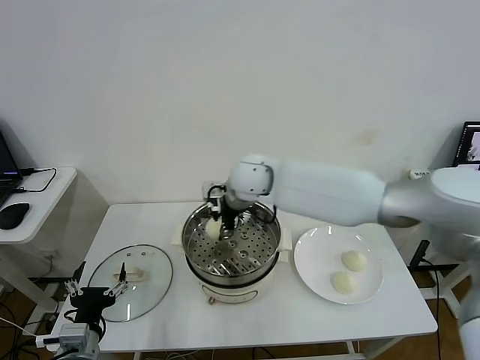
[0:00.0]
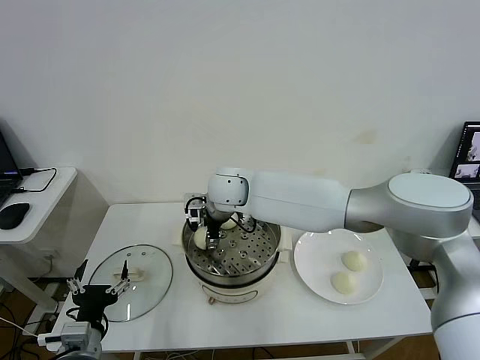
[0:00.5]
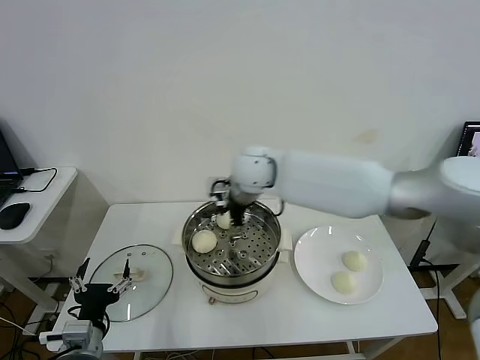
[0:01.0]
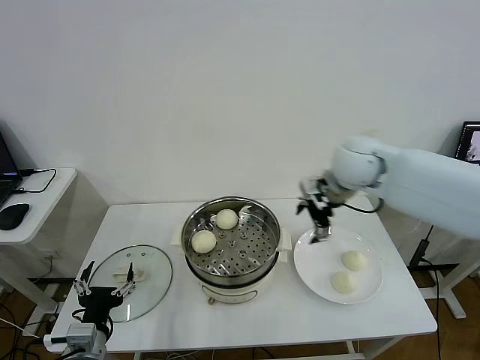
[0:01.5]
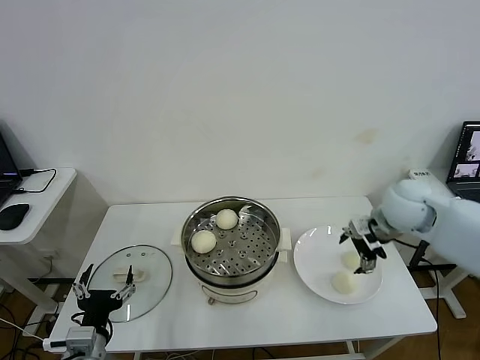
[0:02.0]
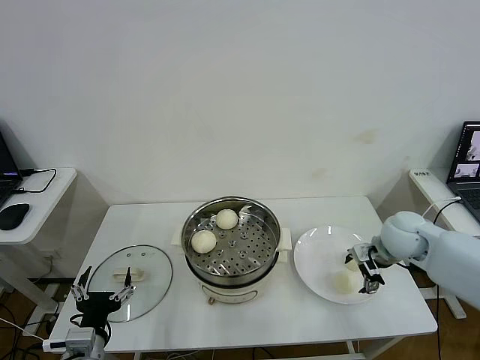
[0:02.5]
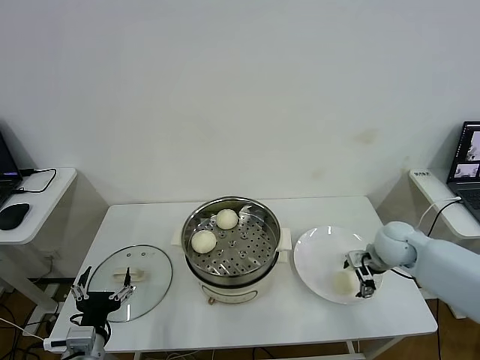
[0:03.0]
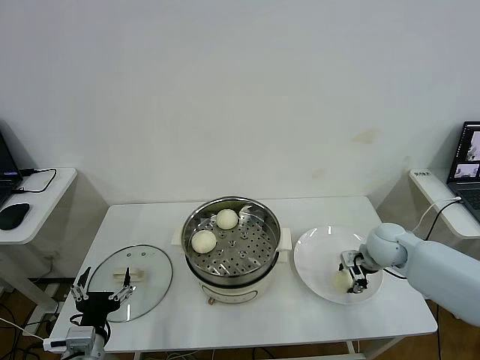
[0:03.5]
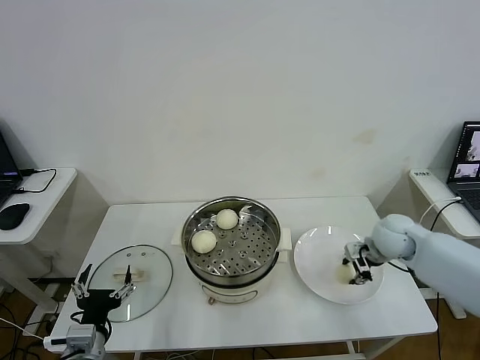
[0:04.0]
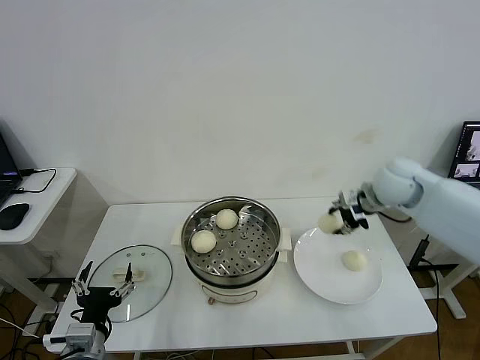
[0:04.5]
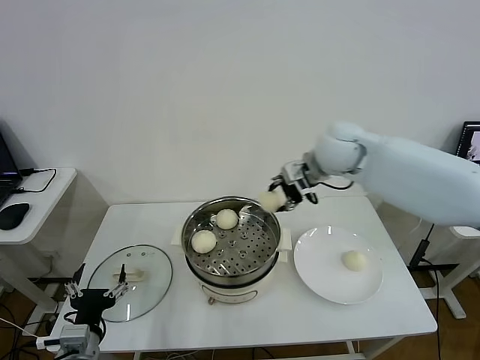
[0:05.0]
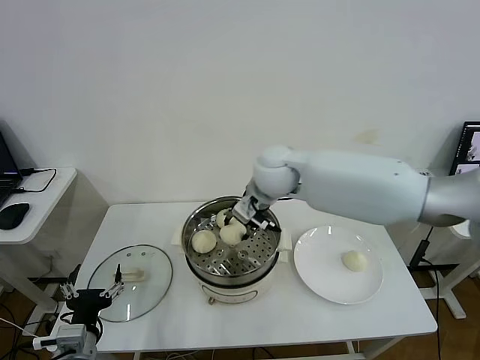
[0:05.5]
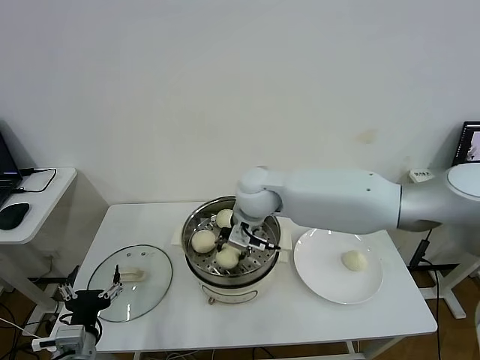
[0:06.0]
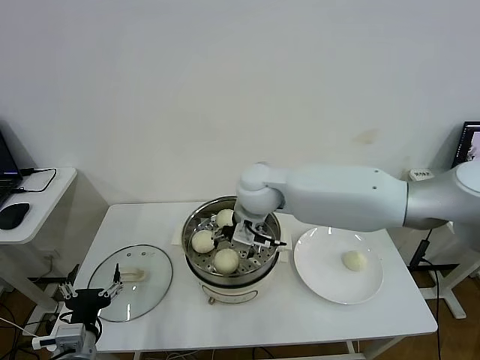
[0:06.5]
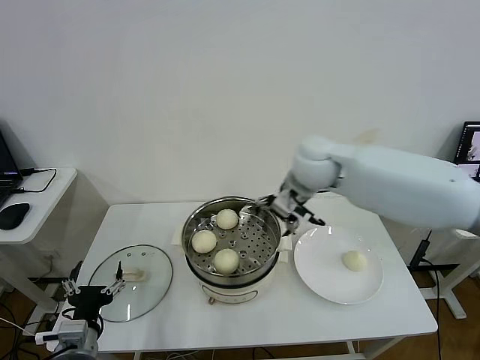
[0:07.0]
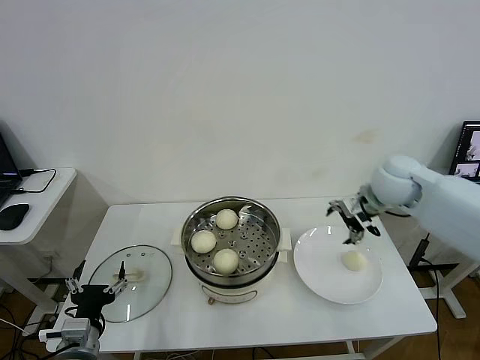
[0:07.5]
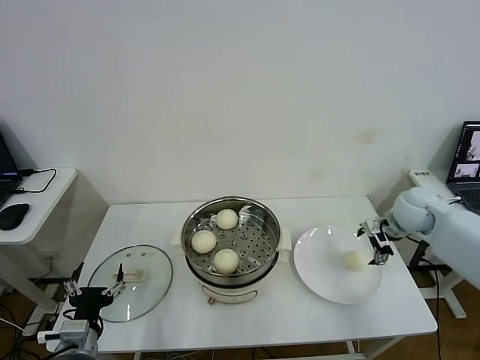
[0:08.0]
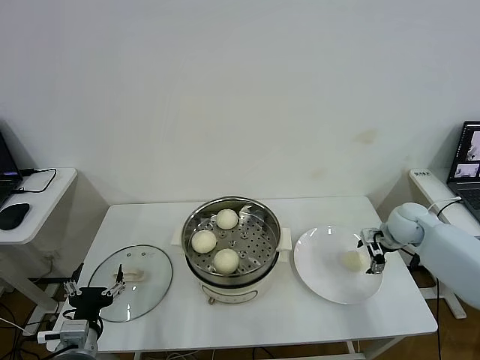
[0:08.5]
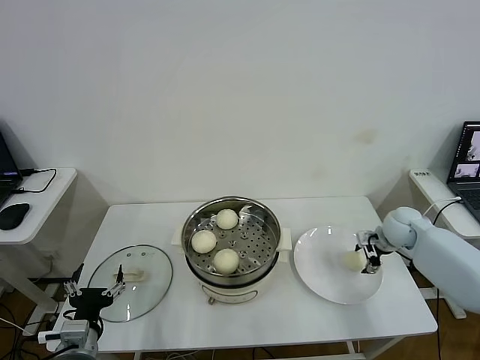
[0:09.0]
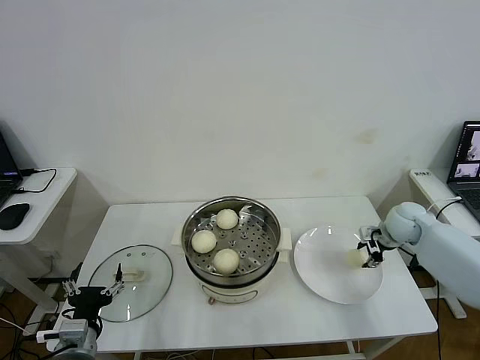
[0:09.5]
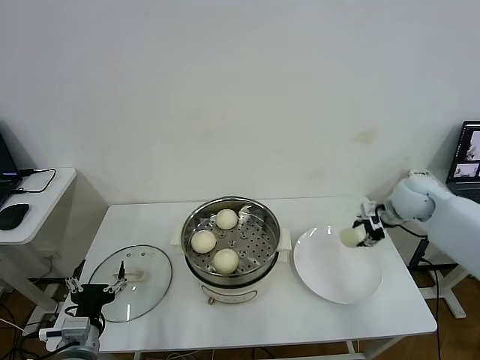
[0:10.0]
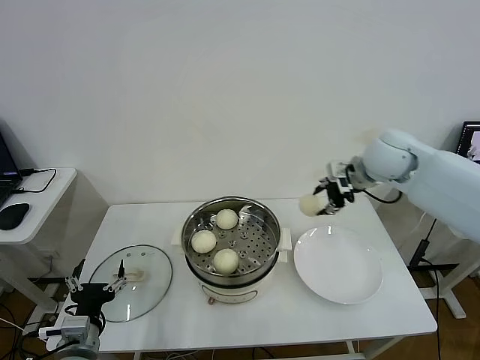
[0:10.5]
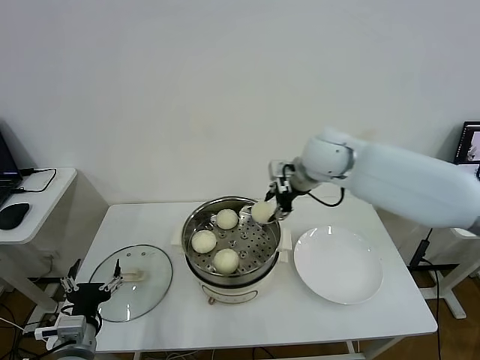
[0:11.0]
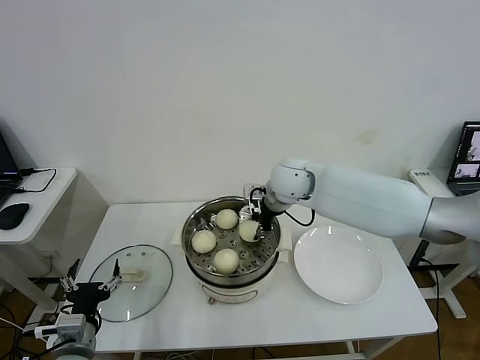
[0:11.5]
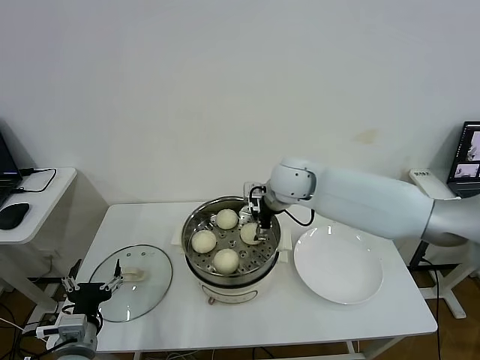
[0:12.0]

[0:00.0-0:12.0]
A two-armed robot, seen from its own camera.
Step, 1.0 to 3.5 s: Grasp the baozi in the plate with right gripper.
Step, 4.0 to 6.0 s: Place the baozi on the steamer with right gripper.
Step, 6.5 to 9.5 s: Grasp the baozi in the plate with right gripper.
Step, 10.0 to 11.5 s: Place the baozi on the steamer with right gripper.
0.0 to 2.0 s: The right gripper travels to the right by approximately 35 cm, and opens its fingers.
2.0 to 4.0 s: The right gripper heads downward, covering about 5 cm, and closes.
4.0 to 6.0 s: The right gripper heads to the left, covering some 30 cm.
6.0 to 8.0 s: The right gripper heads to the right, covering approximately 35 cm, and opens.
8.0 to 10.0 s: The right gripper ends up some 5 cm from where it was, and closes up.
10.0 to 12.0 s: The right gripper heads to the left, covering roughly 25 cm, and opens.

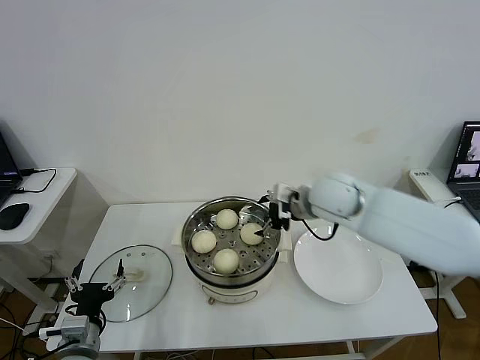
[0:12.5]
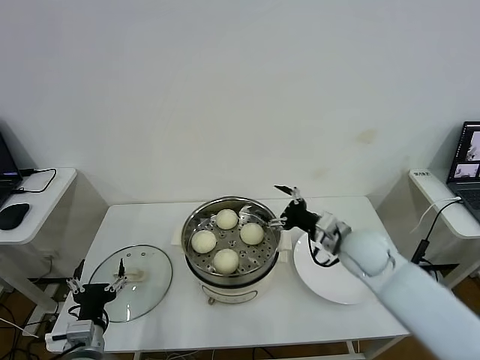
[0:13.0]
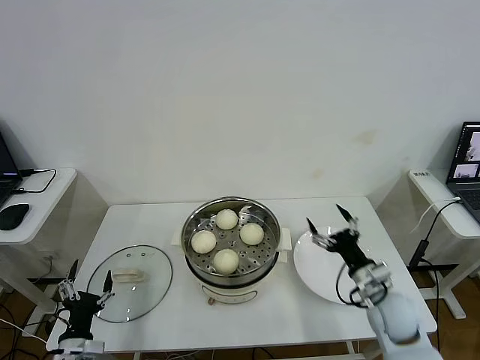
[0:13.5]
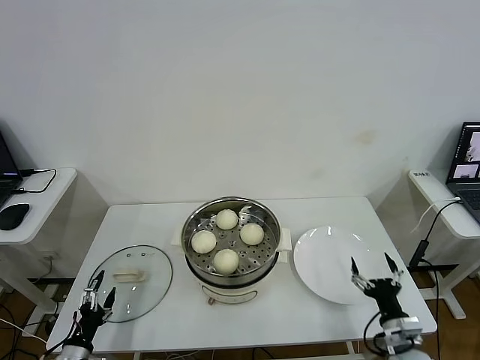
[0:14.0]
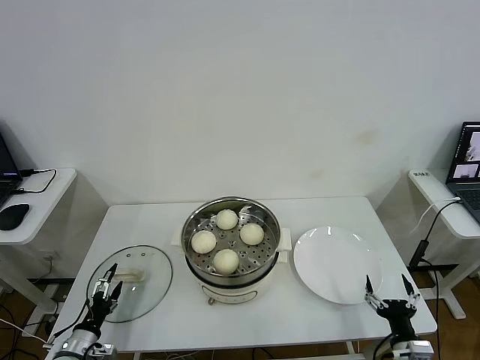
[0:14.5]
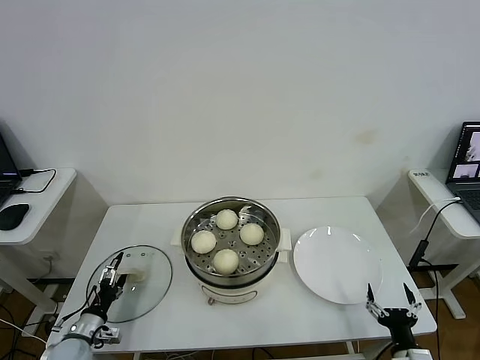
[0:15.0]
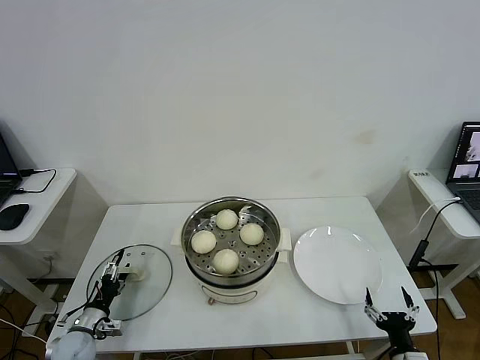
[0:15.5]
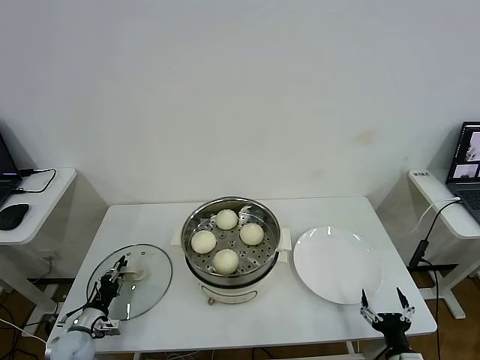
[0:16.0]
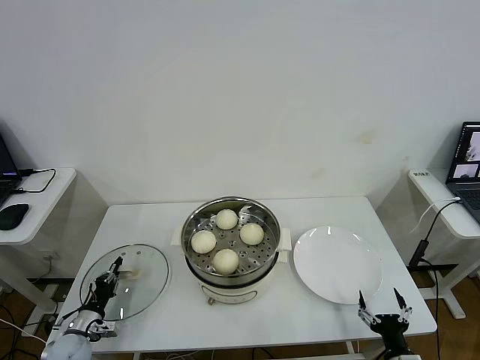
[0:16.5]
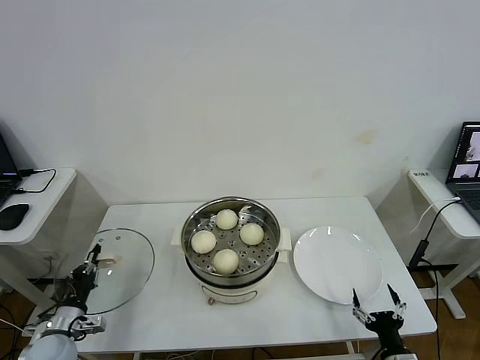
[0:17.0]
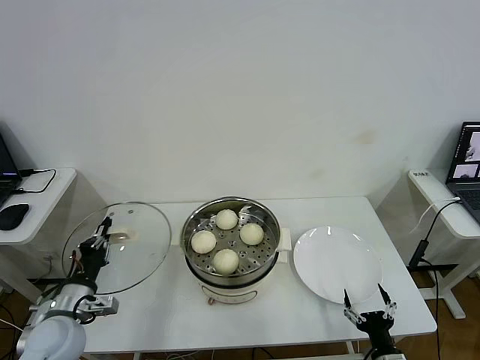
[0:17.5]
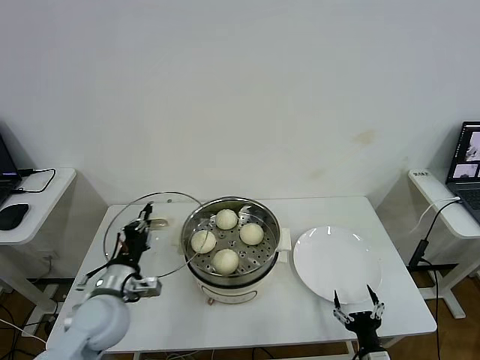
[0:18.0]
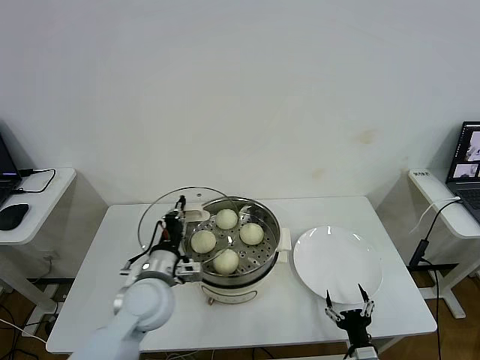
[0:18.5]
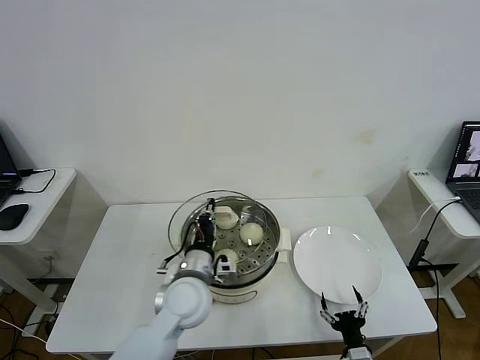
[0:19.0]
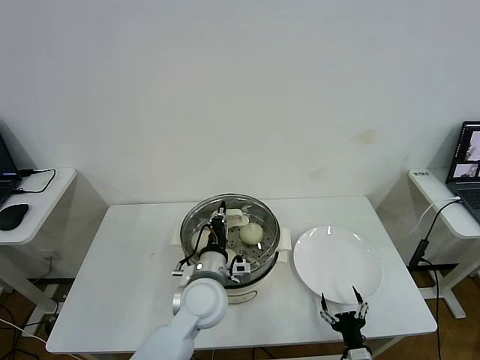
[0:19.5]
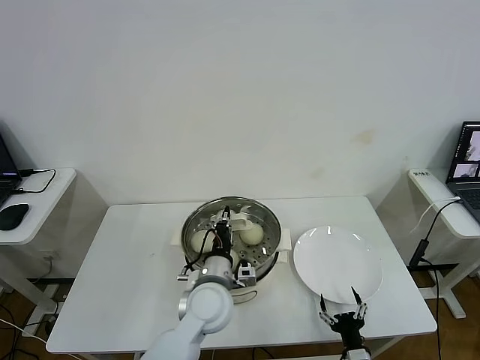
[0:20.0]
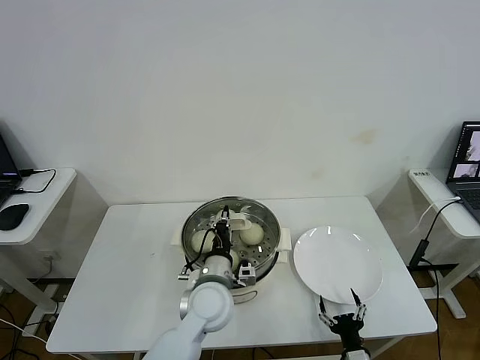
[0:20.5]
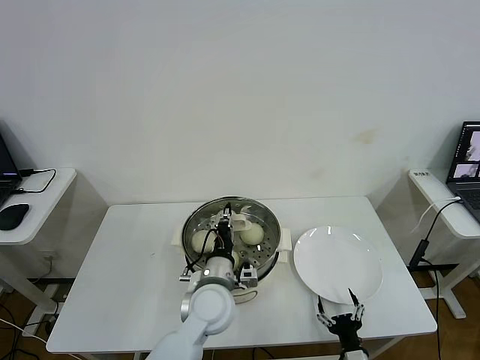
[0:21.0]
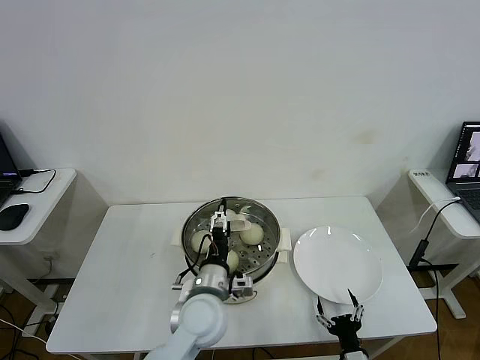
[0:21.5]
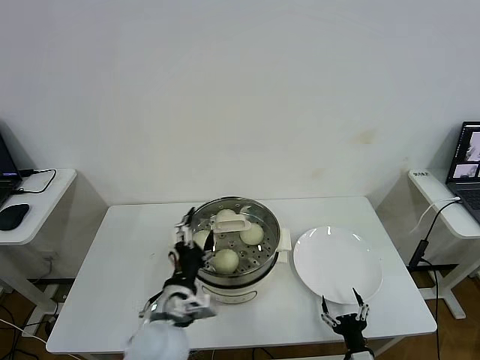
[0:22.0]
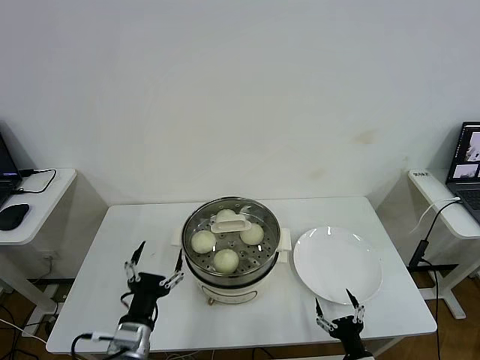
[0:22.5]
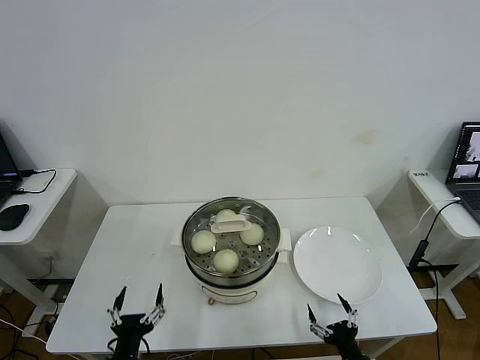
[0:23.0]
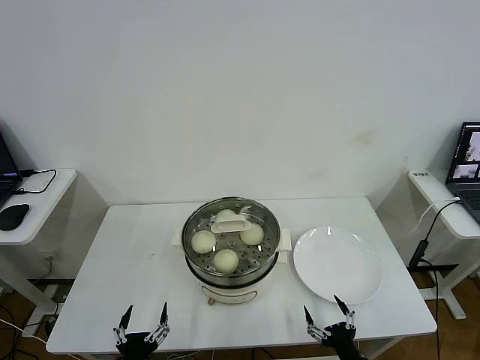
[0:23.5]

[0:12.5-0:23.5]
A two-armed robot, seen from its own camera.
Step, 12.5 to 16.0 s: Grasp the pot lid with left gripper.
Step, 16.5 to 21.0 s: Place the pot lid on the steamer with left gripper.
12.5 to 14.5 s: The left gripper heads downward and to the left, covering approximately 15 cm. Meanwhile the right gripper is displaced backward, downward and to the right by approximately 40 cm.
14.5 to 16.0 s: The left gripper heads forward, covering about 5 cm, and closes up.
16.0 to 18.0 s: The right gripper changes place by roughly 5 cm. Meanwhile the left gripper goes about 25 cm upward and to the right.
18.0 to 20.0 s: The left gripper travels to the right by about 20 cm.
20.0 to 21.5 s: The left gripper opens.
21.5 to 23.5 s: The right gripper is displaced upward by approximately 5 cm. Meanwhile the left gripper is displaced backward, to the left and downward by approximately 30 cm.

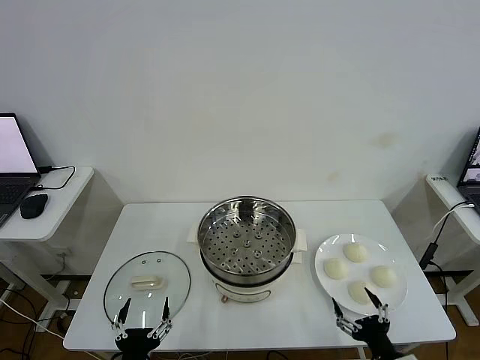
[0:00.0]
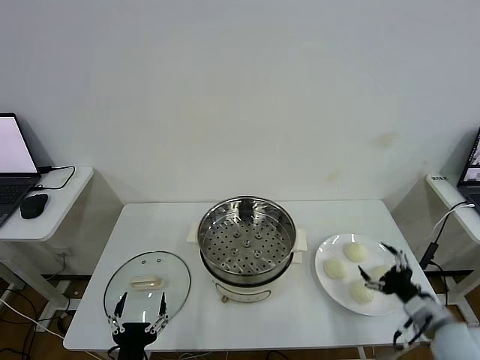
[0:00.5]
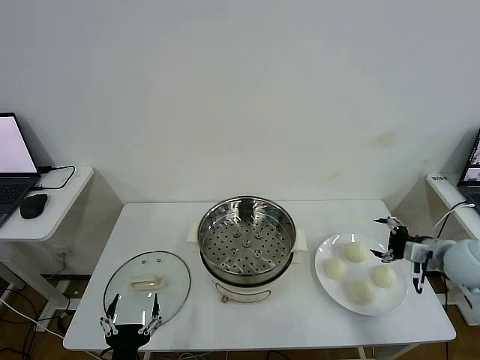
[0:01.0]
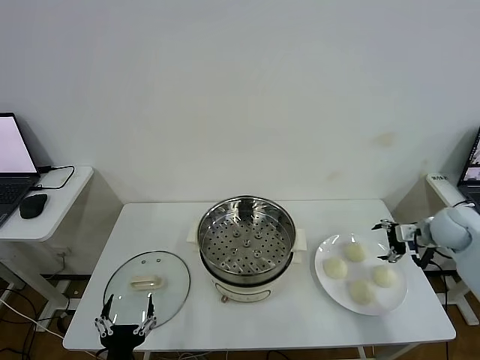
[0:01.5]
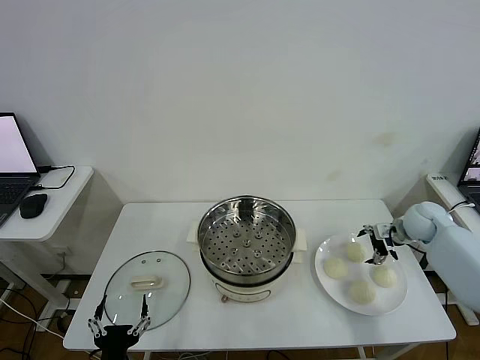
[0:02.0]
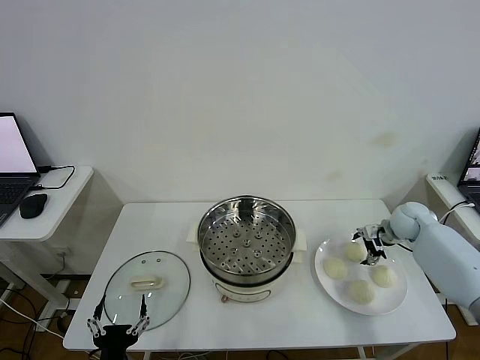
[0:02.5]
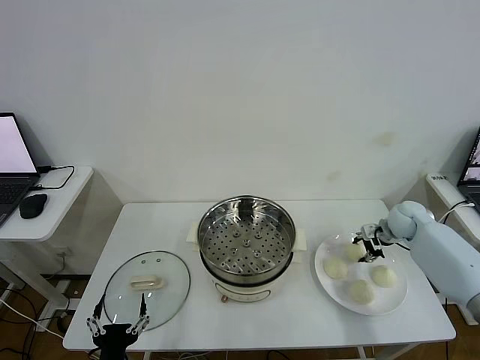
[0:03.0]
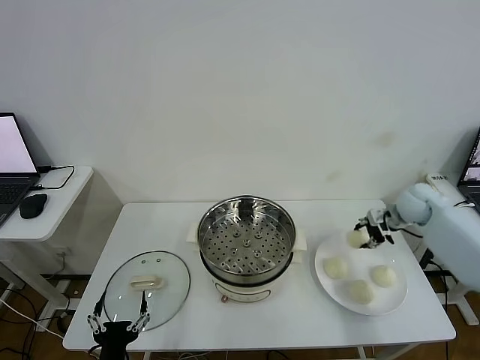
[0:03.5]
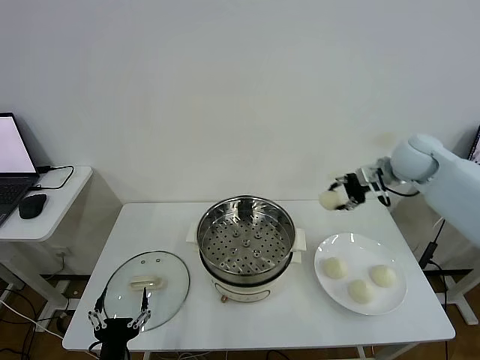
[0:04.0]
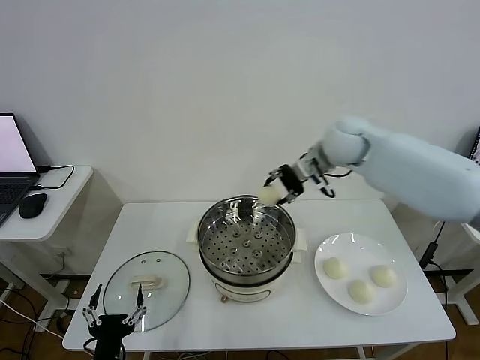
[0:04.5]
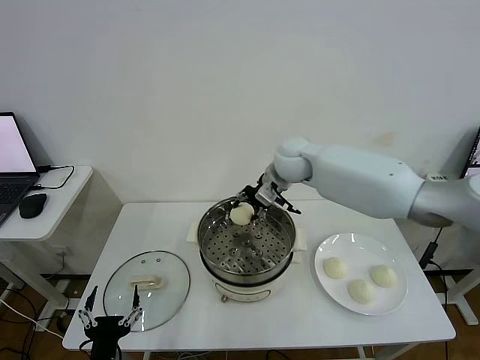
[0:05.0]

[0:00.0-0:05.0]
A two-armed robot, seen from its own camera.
Step, 0.0 to 2.5 s: Grasp the baozi in the plate with right gripper.
2.5 to 5.0 s: The right gripper shifts approximately 35 cm to the left and upward, and closes up.
